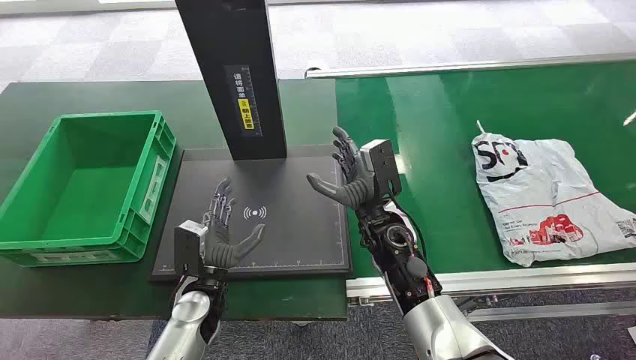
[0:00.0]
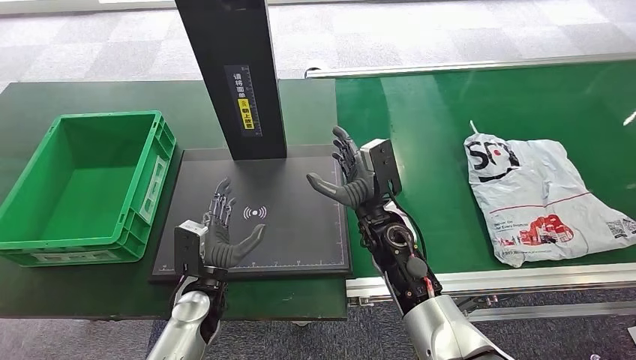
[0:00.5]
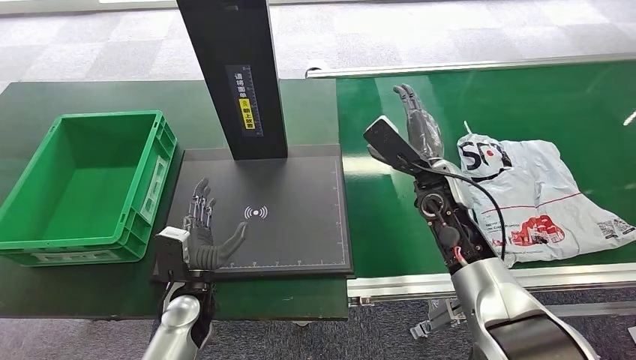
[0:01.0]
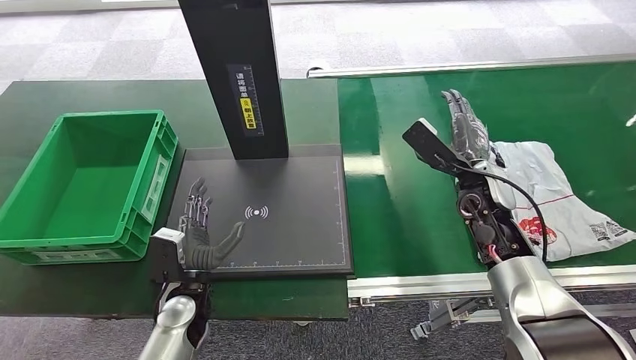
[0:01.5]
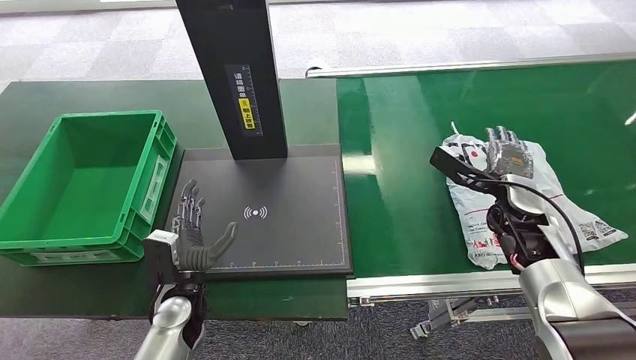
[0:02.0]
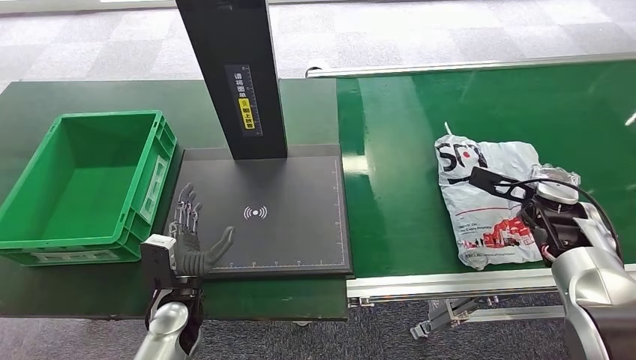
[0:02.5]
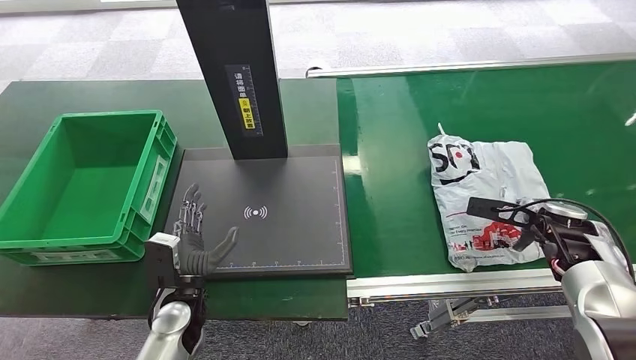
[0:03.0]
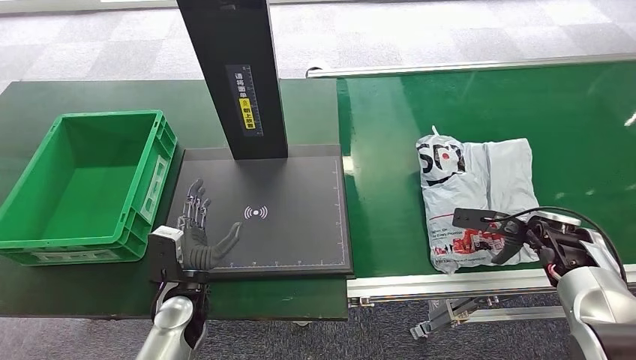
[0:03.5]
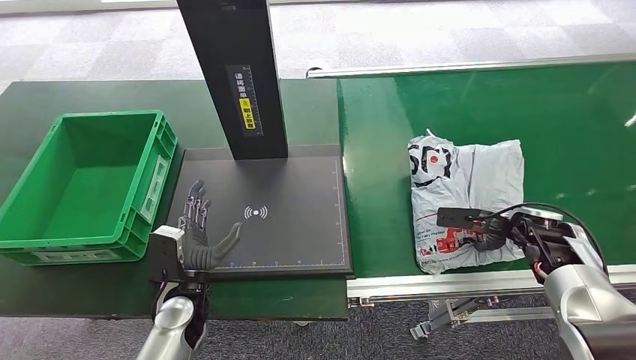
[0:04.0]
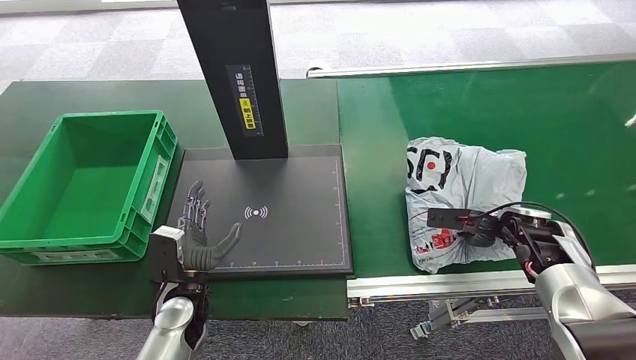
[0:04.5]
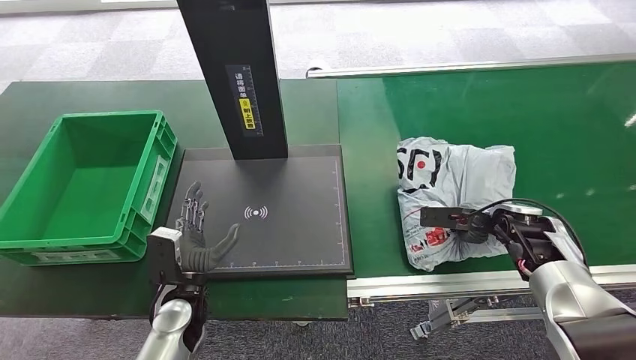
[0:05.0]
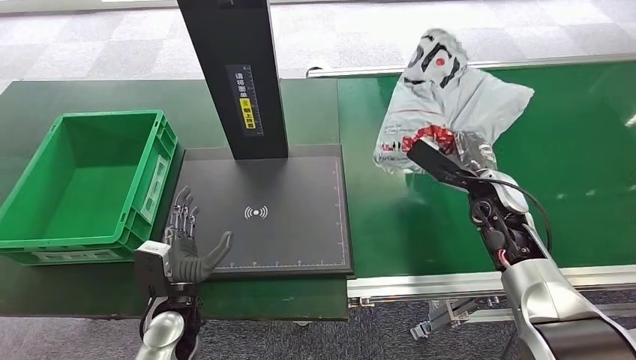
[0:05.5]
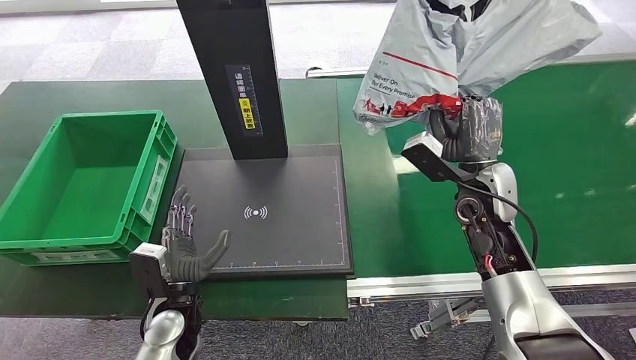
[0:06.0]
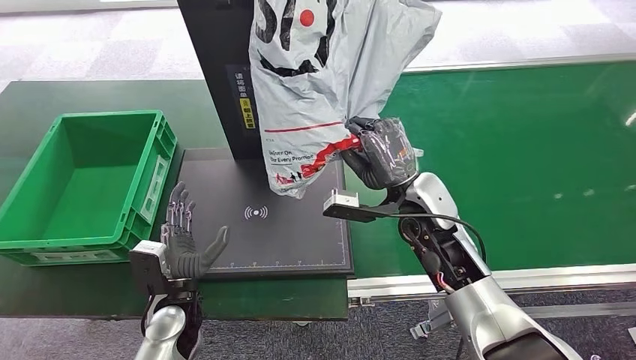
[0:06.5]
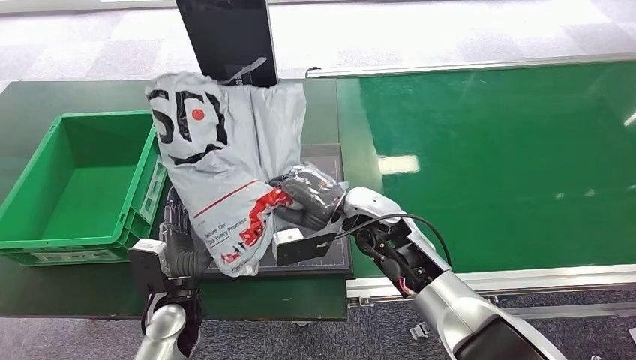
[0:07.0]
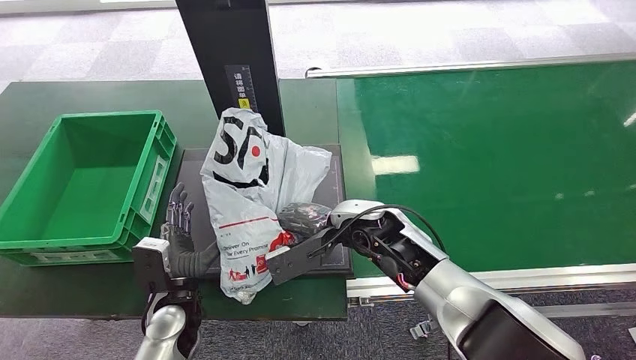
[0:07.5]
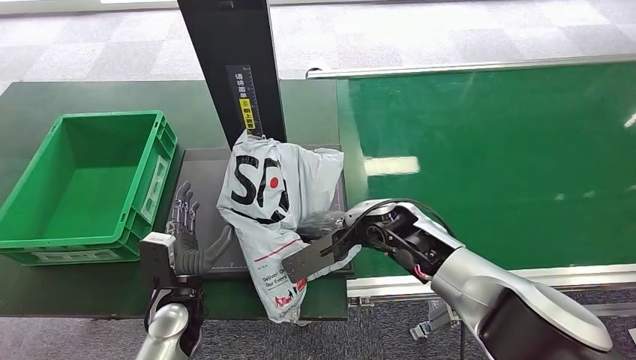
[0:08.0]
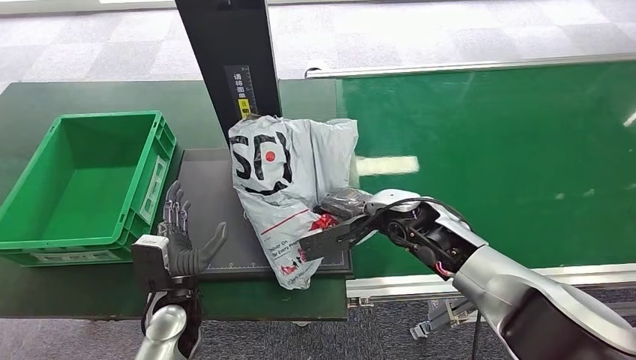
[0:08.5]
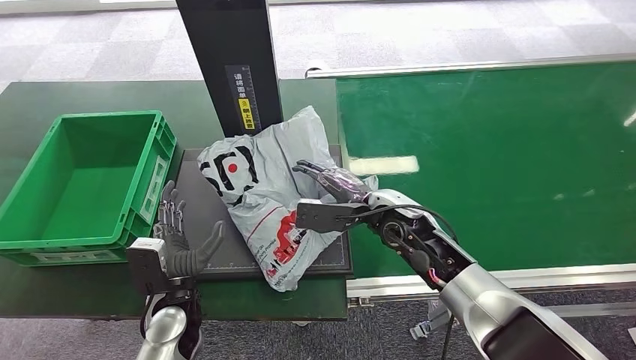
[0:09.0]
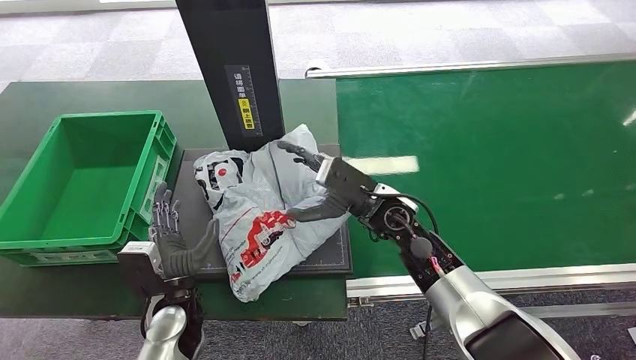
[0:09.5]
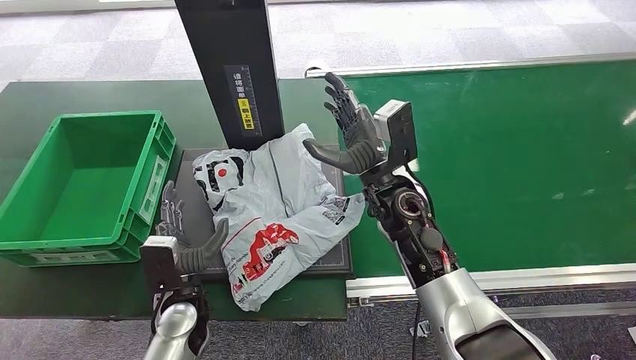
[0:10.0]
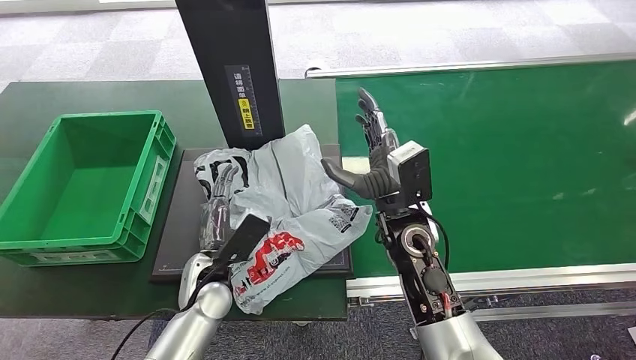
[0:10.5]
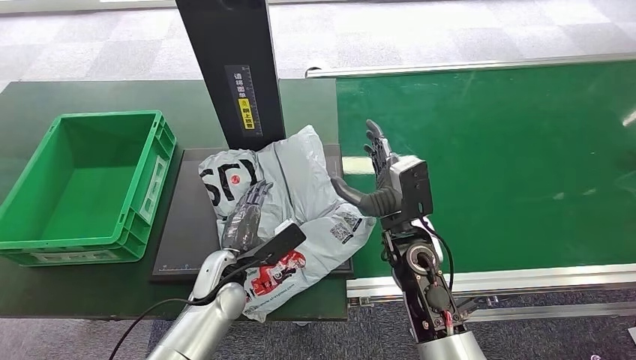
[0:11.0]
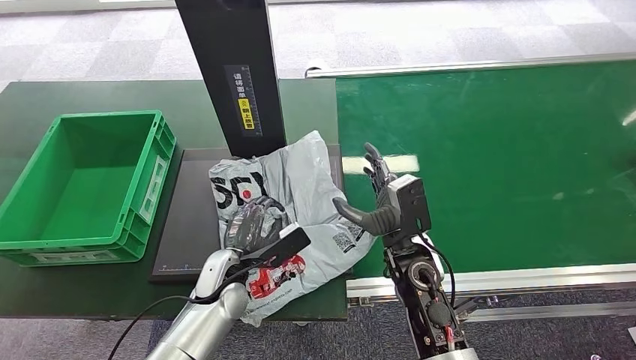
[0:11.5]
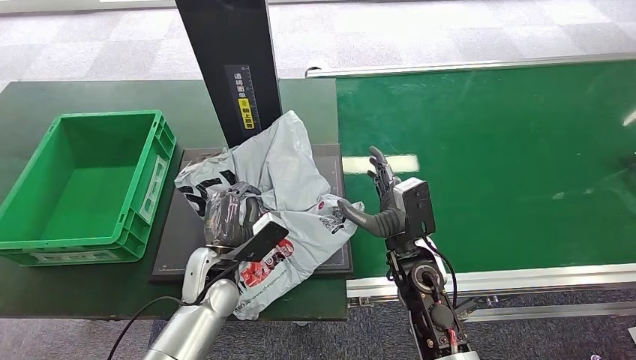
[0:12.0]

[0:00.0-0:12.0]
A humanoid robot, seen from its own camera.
Step, 0:00.0 to 0:06.5: Pick up the package from the conveyor belt.
Step, 0:07.0 to 0:10.0: Place the package onto the inbound machine.
0:02.0 to 0:04.0: The right hand goes about 5 cm to the right.
0:10.0 to 0:12.0: The left hand shifts by about 5 cm, while the right hand shifts approximately 10 cm downward and backward.

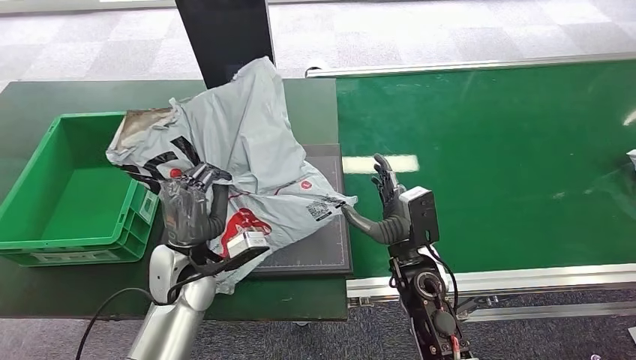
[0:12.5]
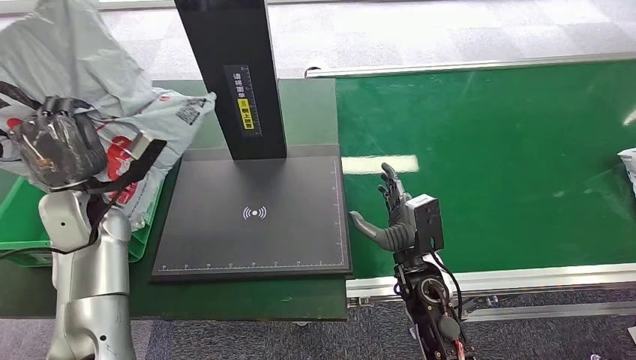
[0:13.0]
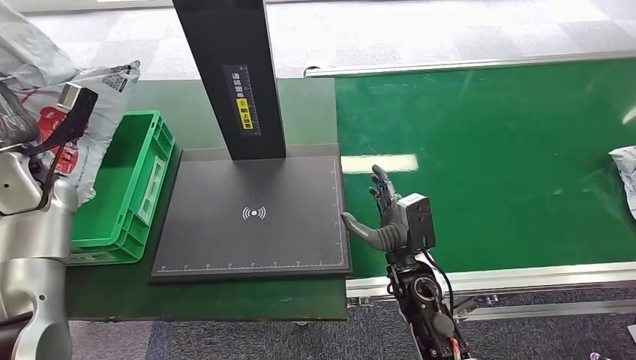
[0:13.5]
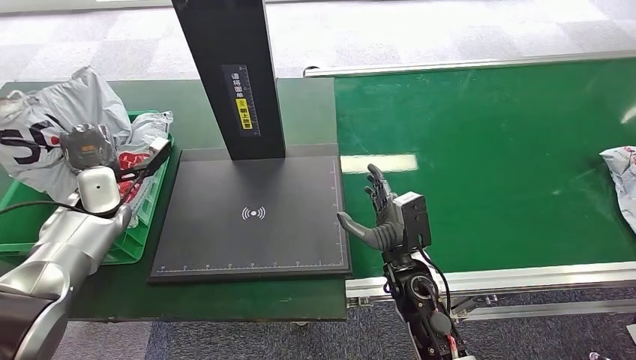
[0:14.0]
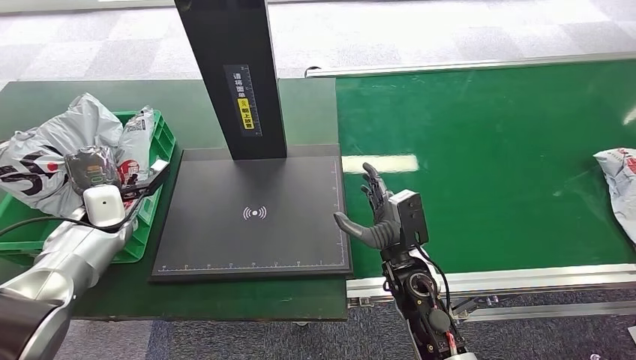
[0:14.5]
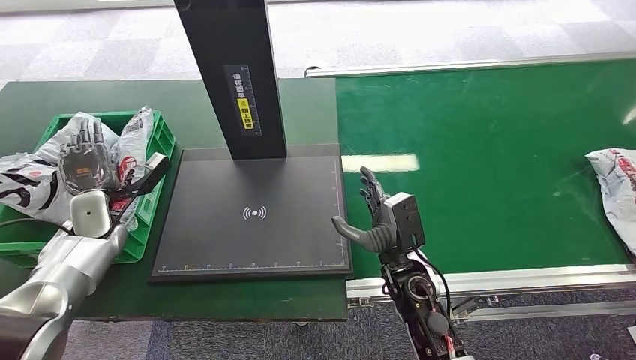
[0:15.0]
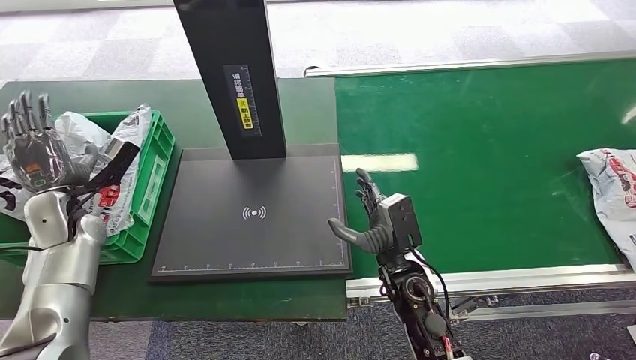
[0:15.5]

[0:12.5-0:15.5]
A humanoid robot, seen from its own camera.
Step, 0:13.0 to 0:15.5: Place the package into the parcel locker.
0:14.0 to 0:15.5: The left hand changes place by approximately 5 cm.
